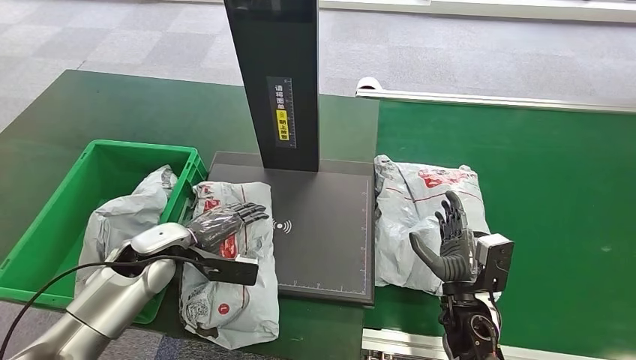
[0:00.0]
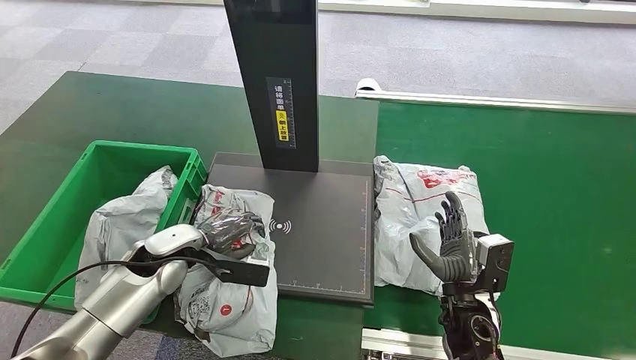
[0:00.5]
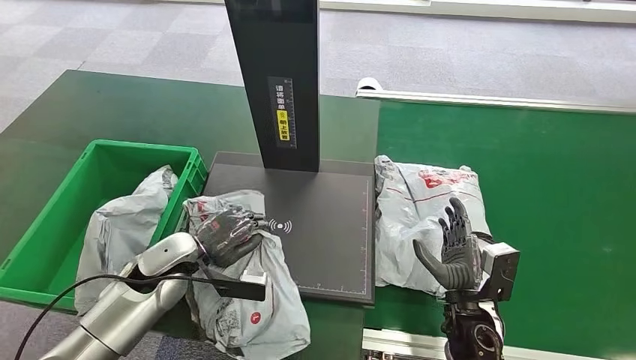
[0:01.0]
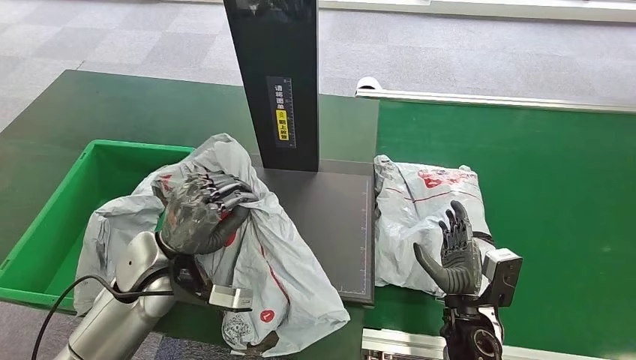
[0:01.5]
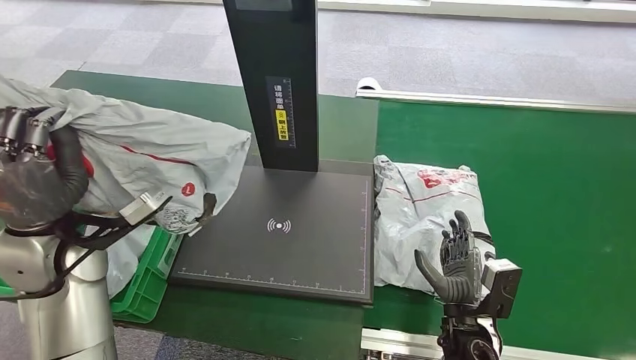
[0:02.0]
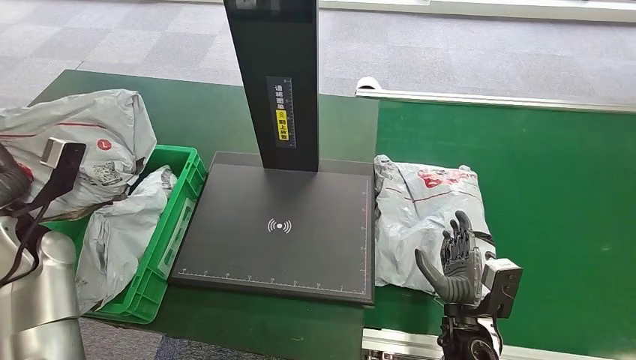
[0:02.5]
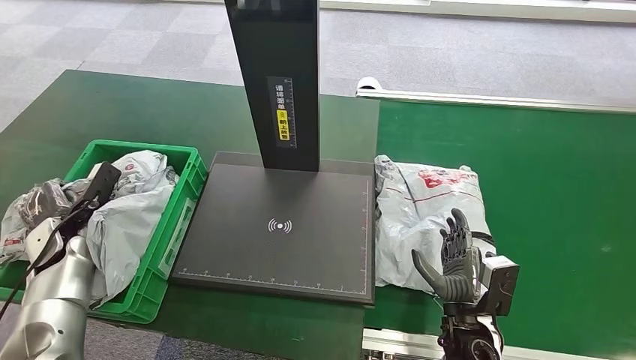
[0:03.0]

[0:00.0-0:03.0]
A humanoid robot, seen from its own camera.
Step, 0:01.0 to 0:03.0: Place the package into the parcel locker.
0:00.0 to 0:01.5: The left hand is displaced upward and to the right by about 10 cm.

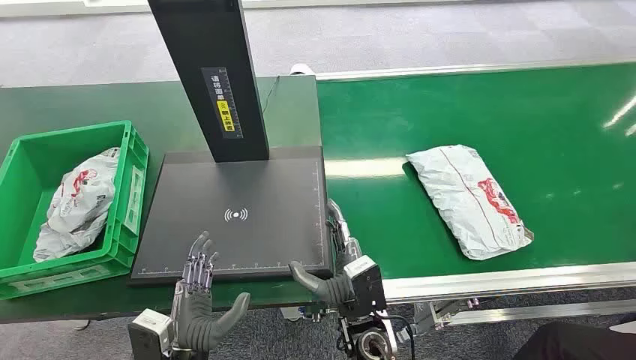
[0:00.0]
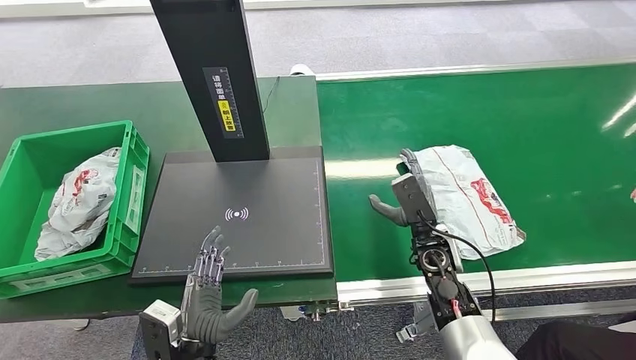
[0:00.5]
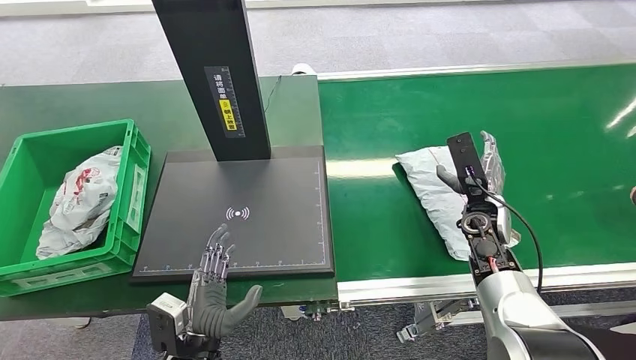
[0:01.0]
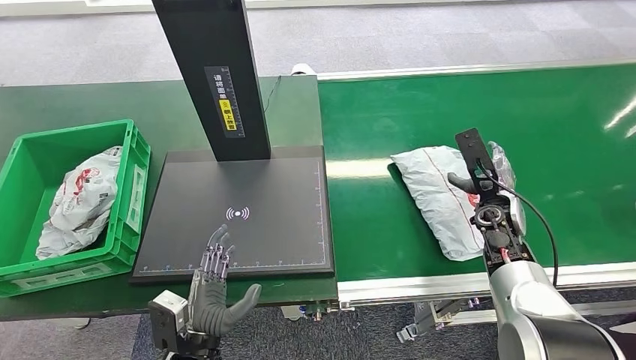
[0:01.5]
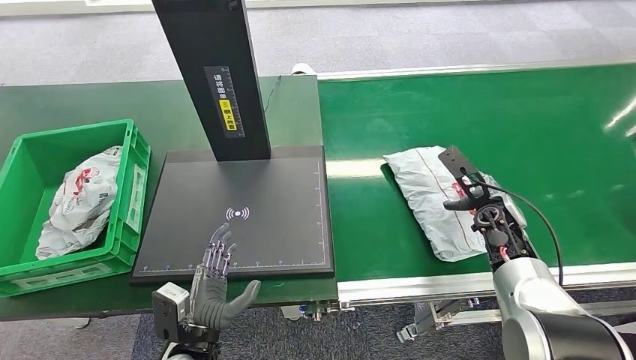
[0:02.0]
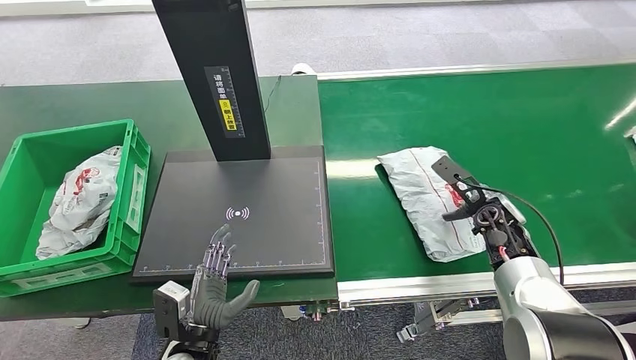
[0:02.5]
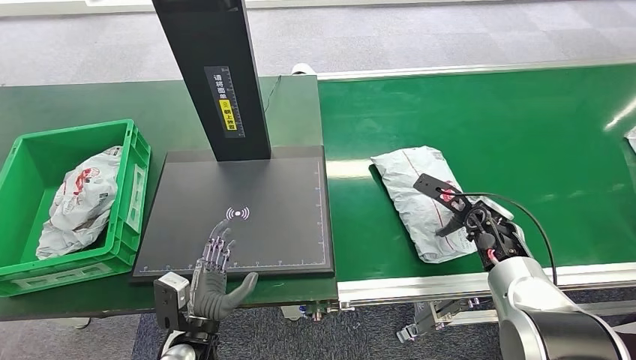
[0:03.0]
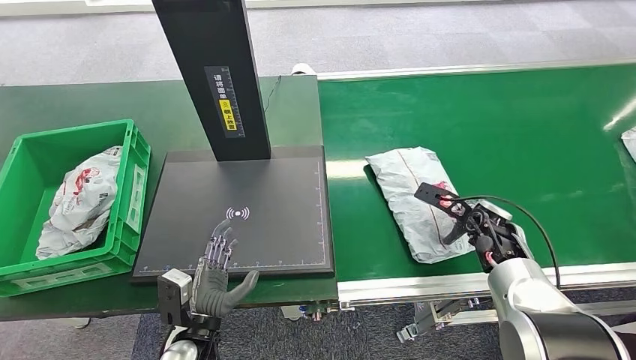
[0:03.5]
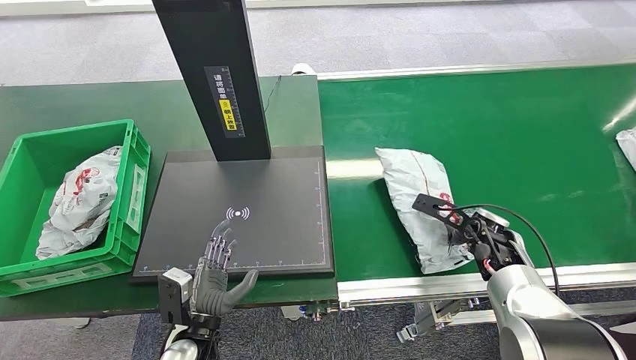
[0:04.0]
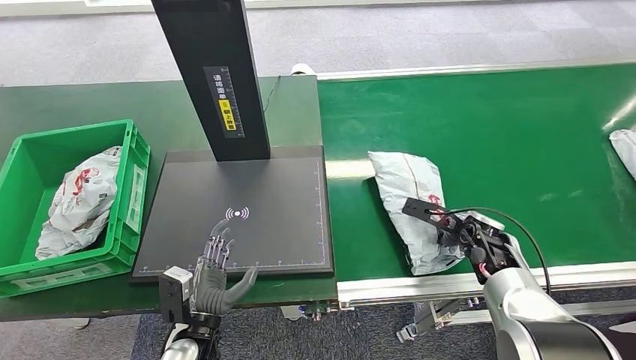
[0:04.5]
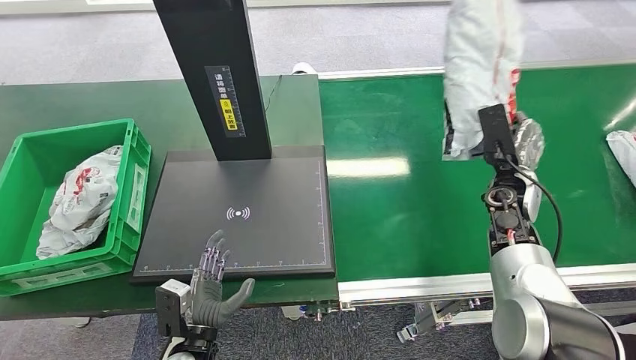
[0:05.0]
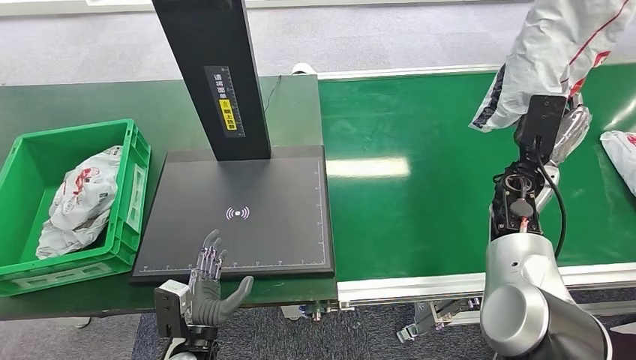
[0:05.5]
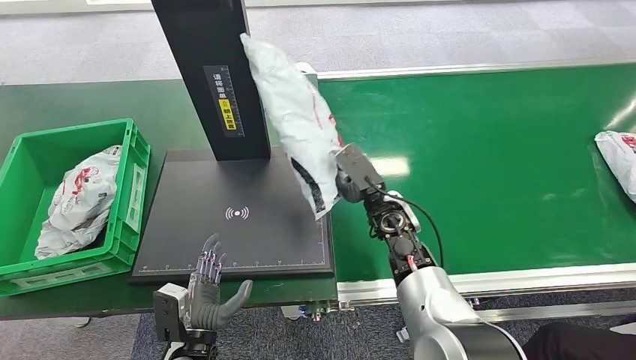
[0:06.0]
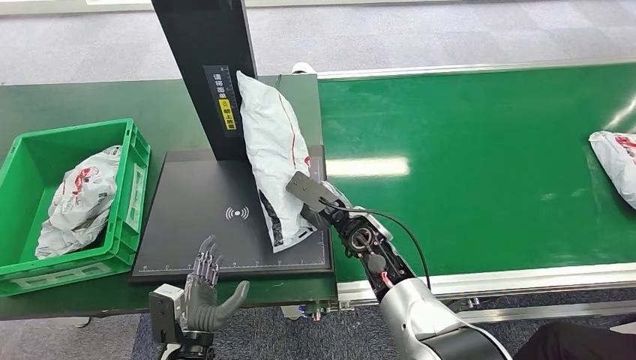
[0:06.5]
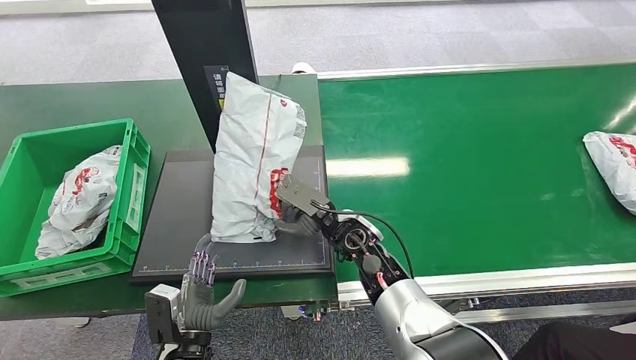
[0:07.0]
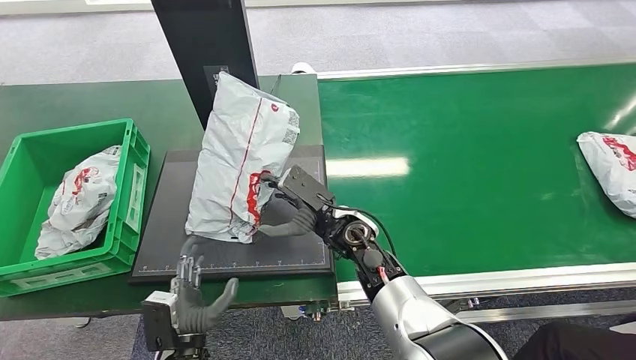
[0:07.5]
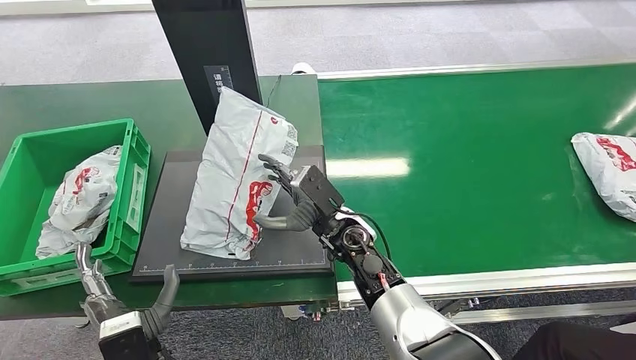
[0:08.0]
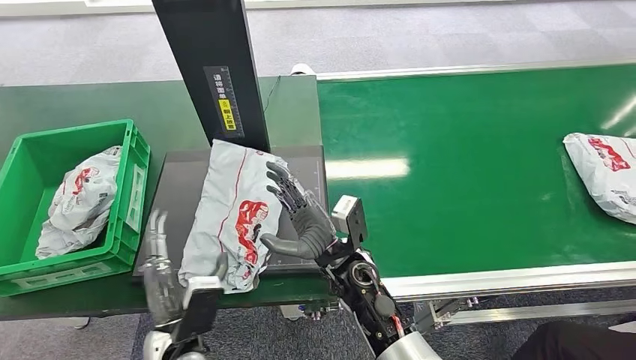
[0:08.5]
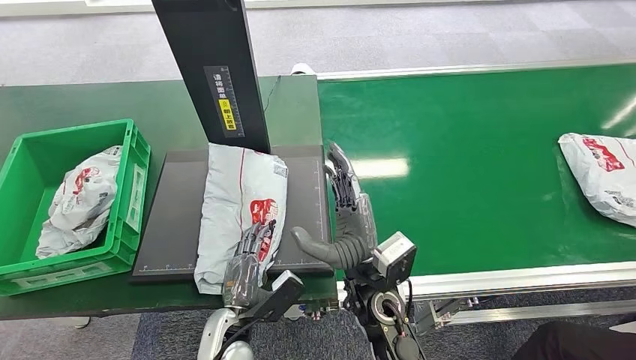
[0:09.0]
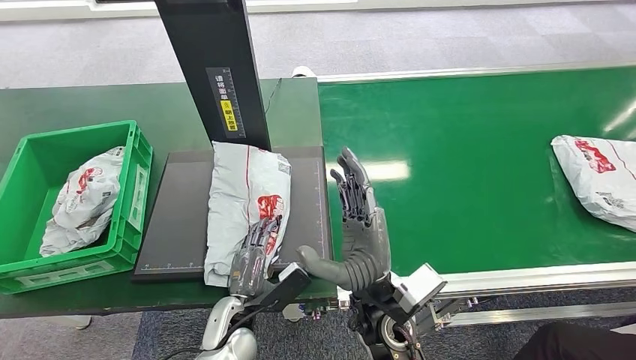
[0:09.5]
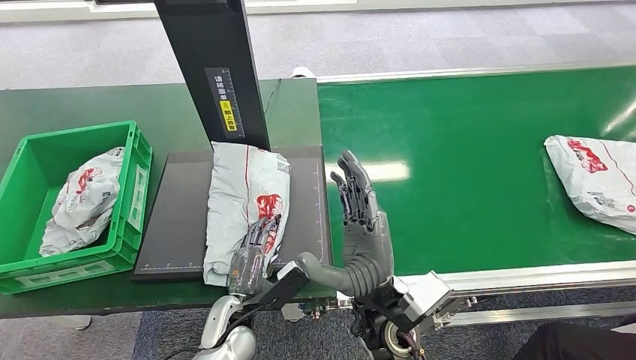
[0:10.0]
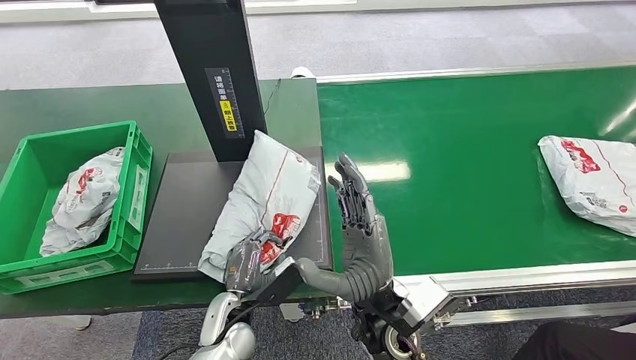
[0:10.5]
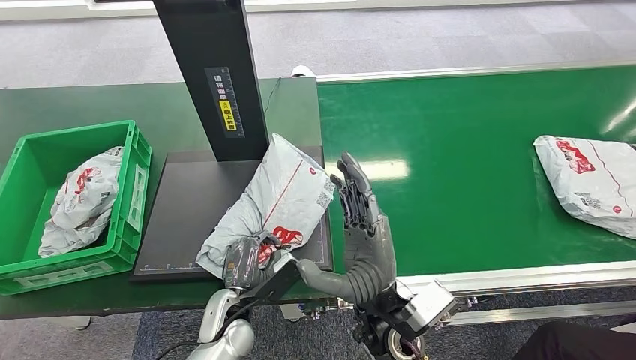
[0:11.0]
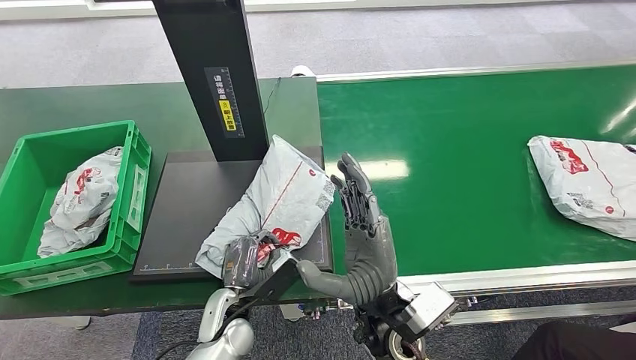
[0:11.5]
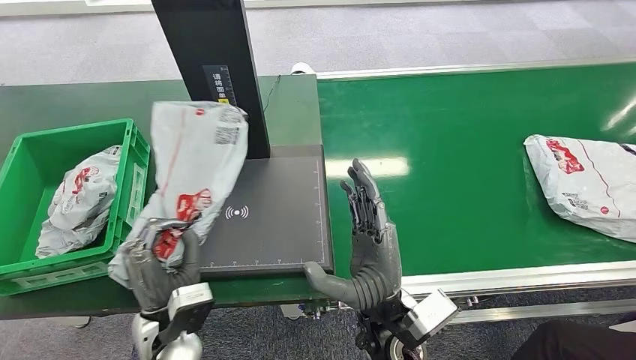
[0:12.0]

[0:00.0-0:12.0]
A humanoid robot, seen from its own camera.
Step, 0:00.0 to 0:05.5: Pick up the package from the conveyor belt.
Step, 0:06.5 to 0:09.0: Place the package onto the inbound machine.

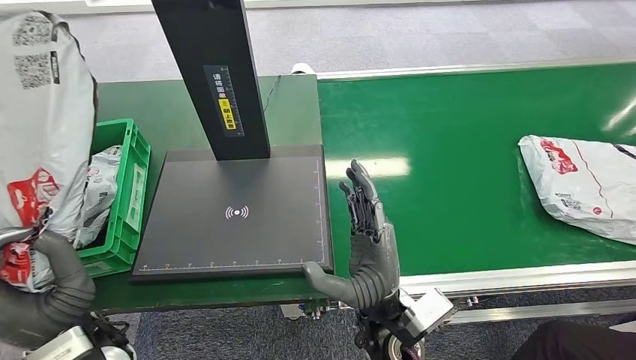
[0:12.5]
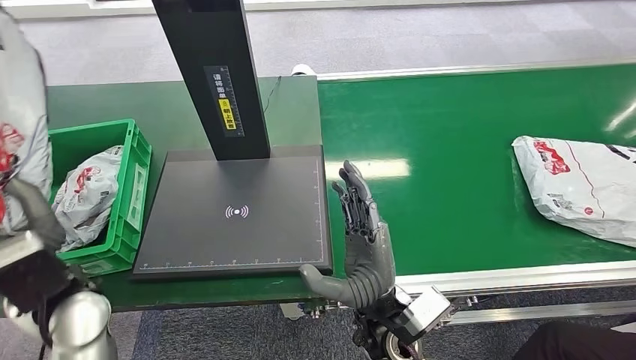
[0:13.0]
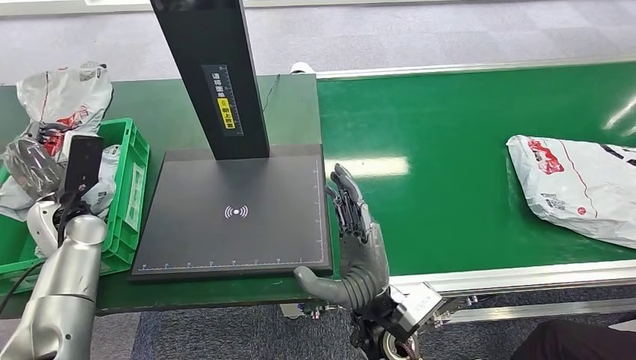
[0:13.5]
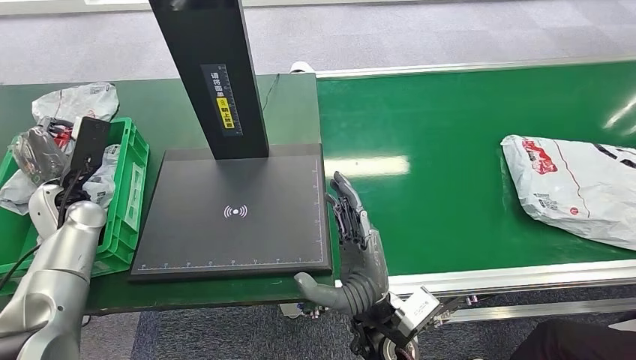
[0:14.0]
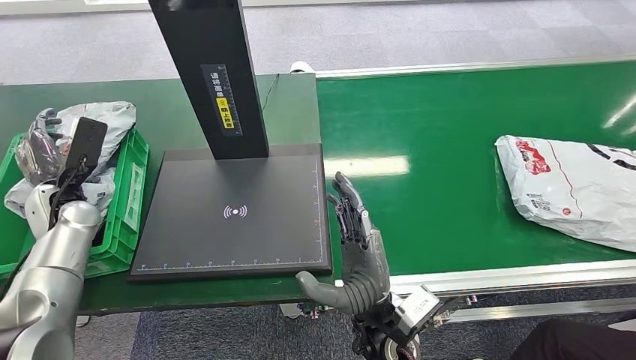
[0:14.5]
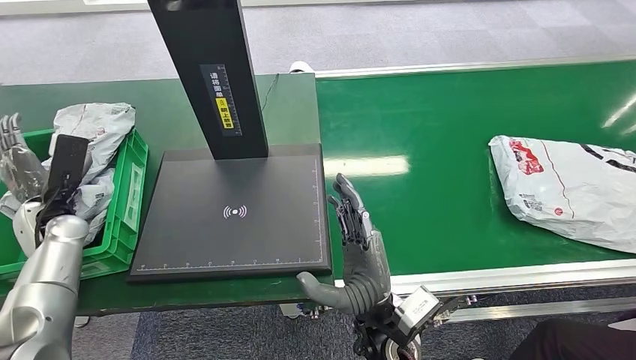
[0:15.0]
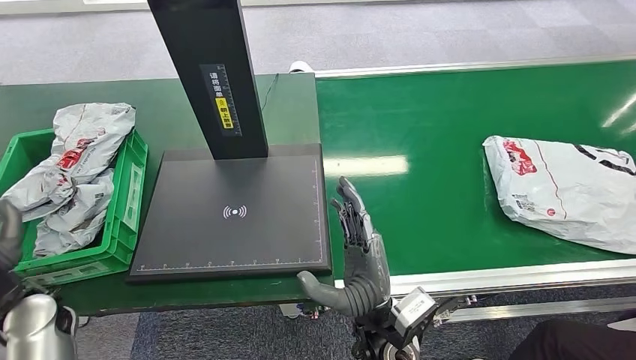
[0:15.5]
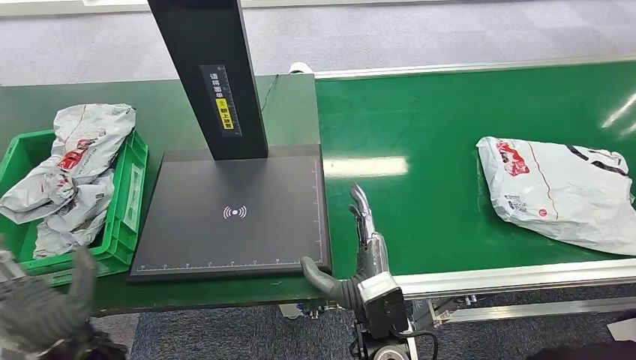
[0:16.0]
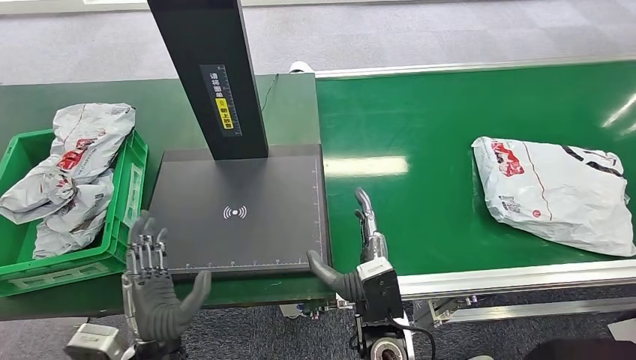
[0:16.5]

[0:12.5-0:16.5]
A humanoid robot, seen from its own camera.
Step, 0:13.0 to 0:16.5: Place the package into the parcel locker.
0:14.5 to 0:16.5: The left hand shifts approximately 35 cm backward and to the right.
